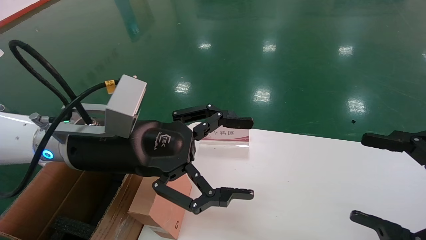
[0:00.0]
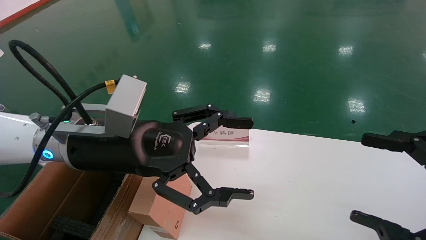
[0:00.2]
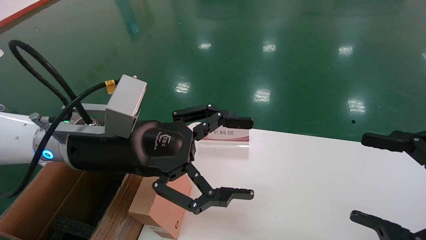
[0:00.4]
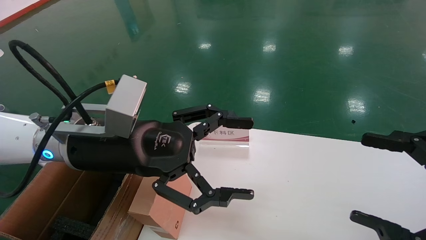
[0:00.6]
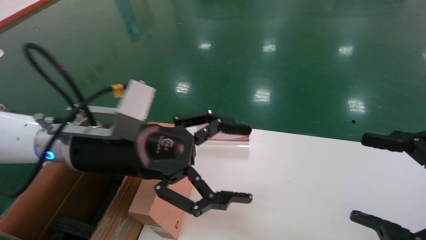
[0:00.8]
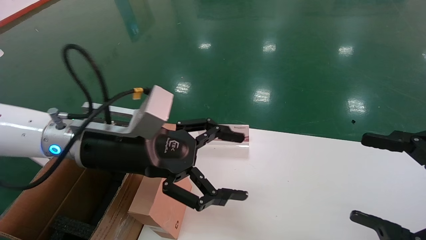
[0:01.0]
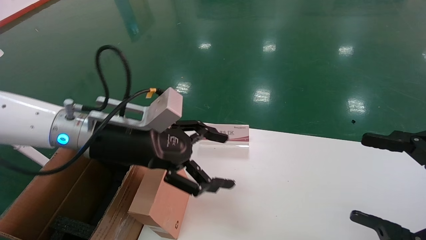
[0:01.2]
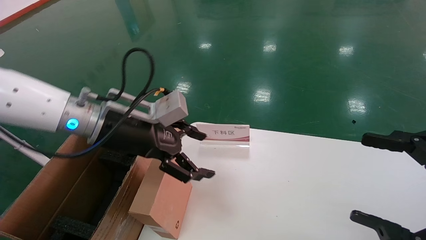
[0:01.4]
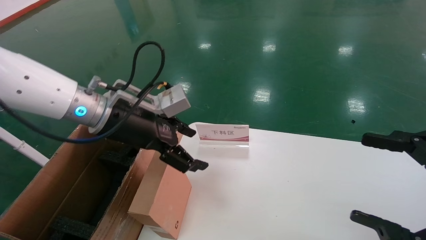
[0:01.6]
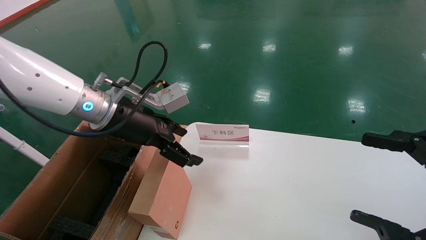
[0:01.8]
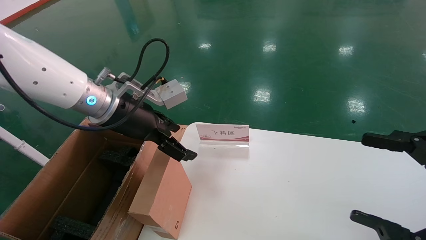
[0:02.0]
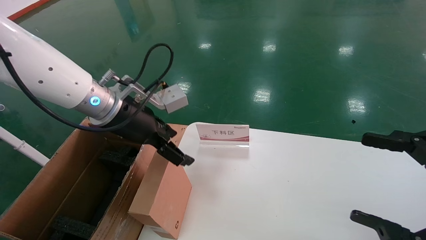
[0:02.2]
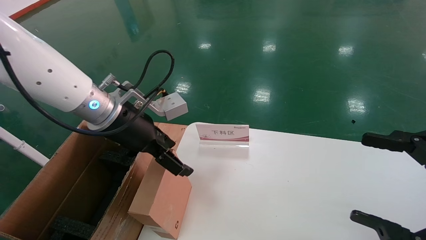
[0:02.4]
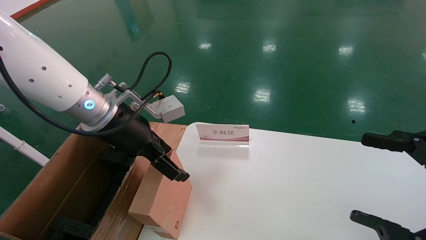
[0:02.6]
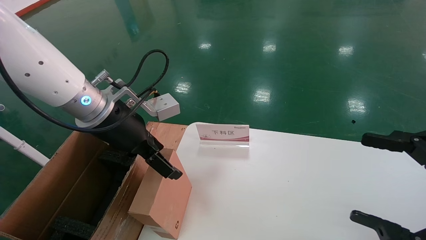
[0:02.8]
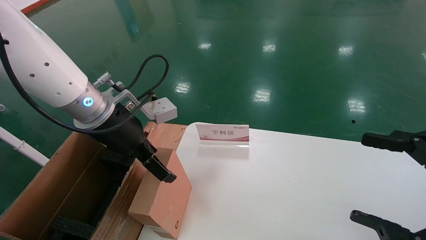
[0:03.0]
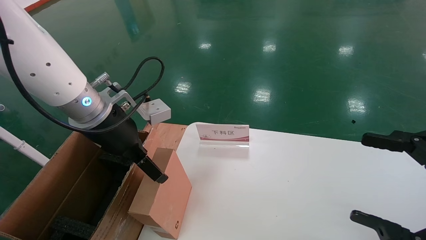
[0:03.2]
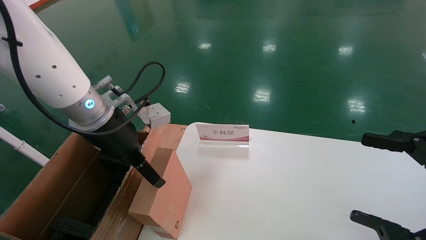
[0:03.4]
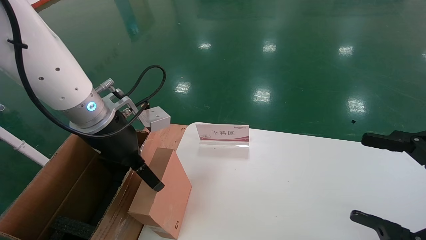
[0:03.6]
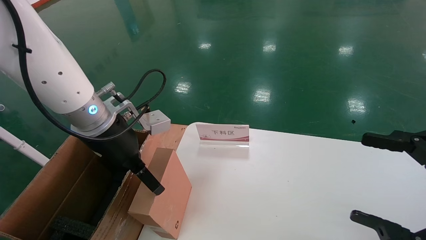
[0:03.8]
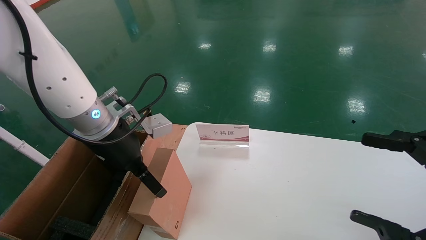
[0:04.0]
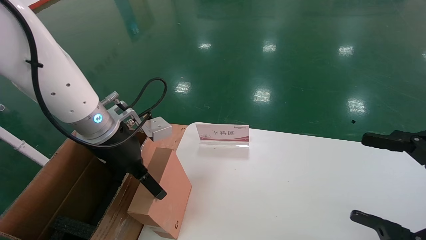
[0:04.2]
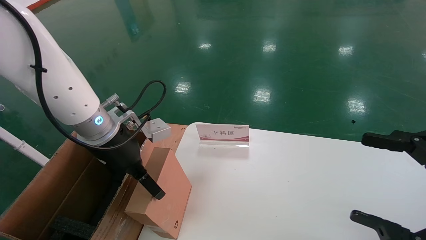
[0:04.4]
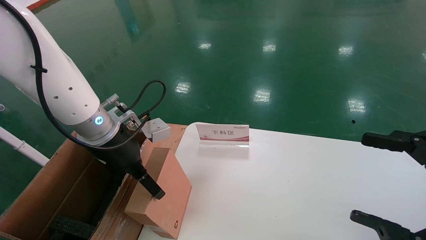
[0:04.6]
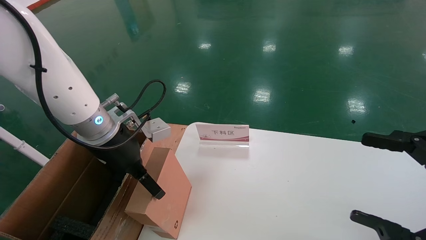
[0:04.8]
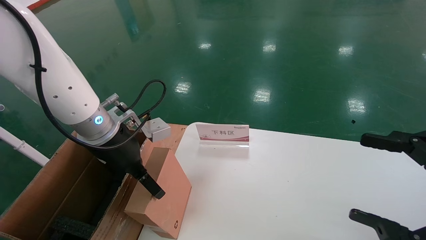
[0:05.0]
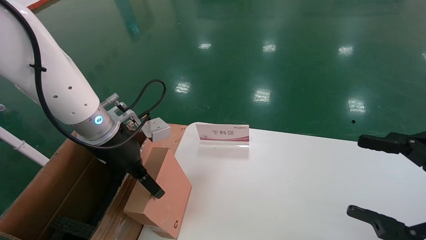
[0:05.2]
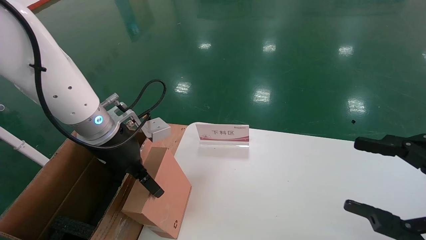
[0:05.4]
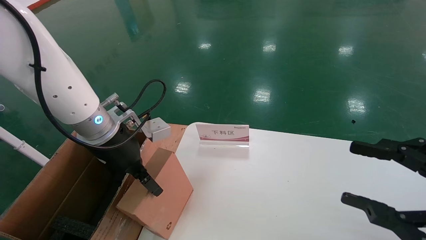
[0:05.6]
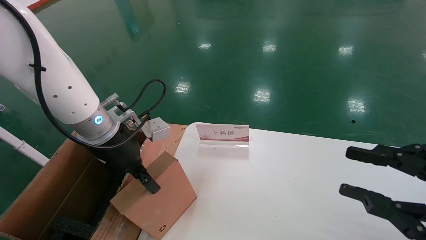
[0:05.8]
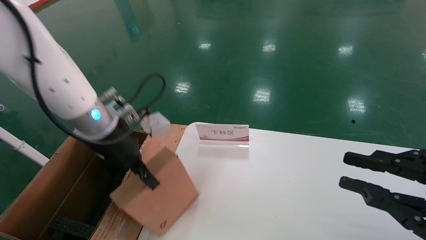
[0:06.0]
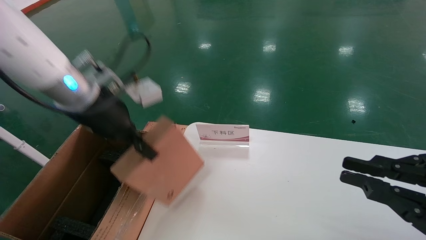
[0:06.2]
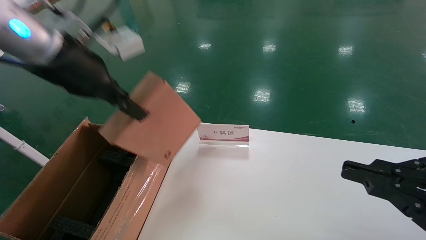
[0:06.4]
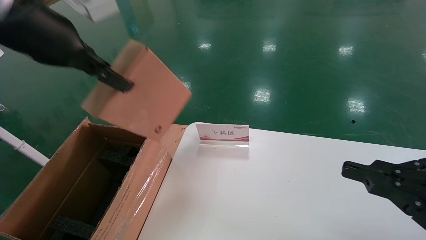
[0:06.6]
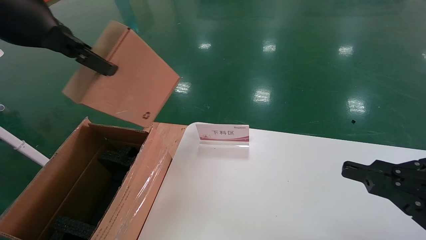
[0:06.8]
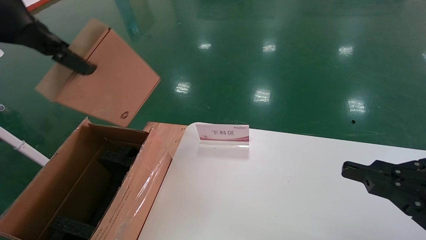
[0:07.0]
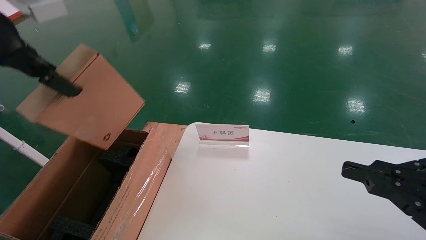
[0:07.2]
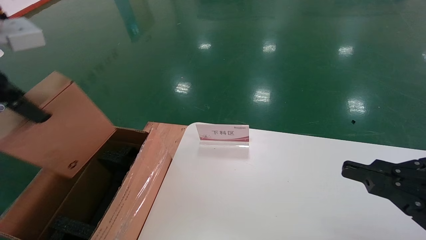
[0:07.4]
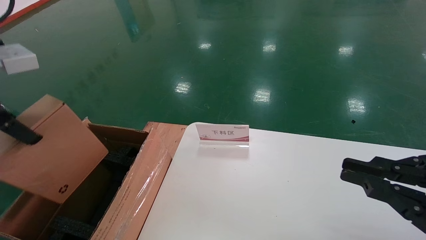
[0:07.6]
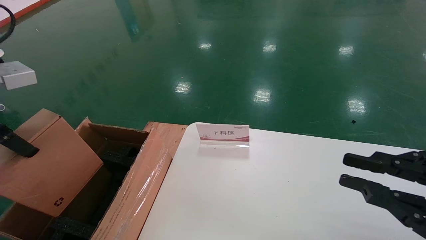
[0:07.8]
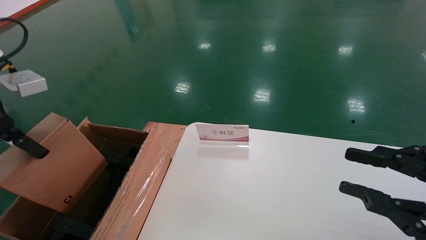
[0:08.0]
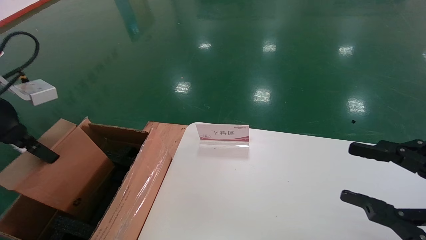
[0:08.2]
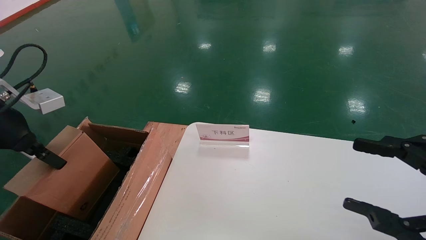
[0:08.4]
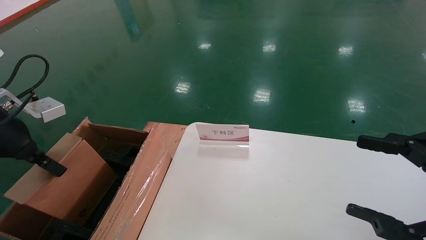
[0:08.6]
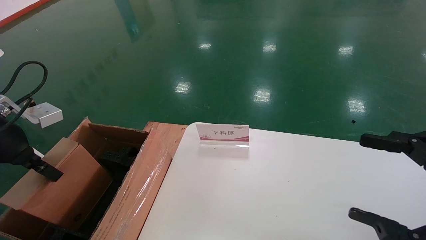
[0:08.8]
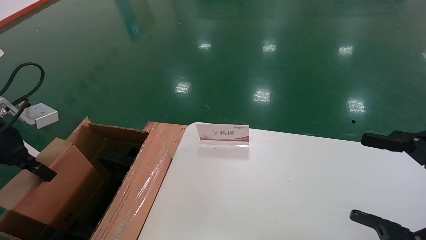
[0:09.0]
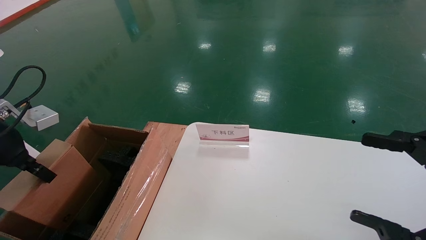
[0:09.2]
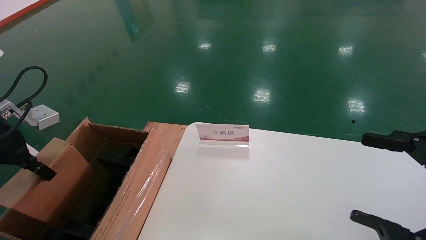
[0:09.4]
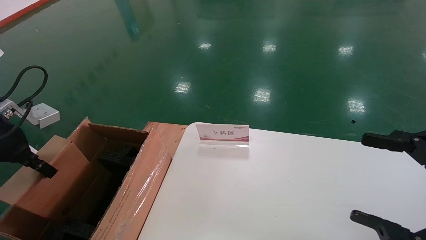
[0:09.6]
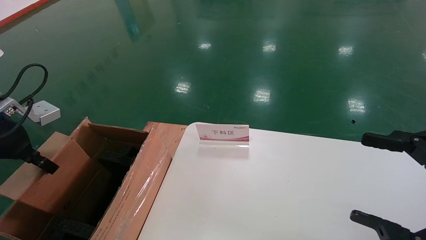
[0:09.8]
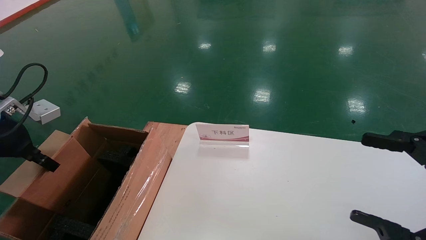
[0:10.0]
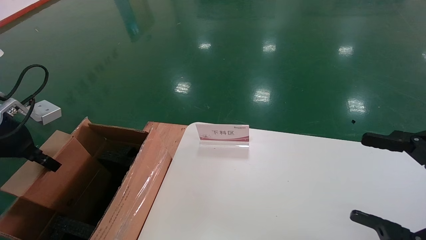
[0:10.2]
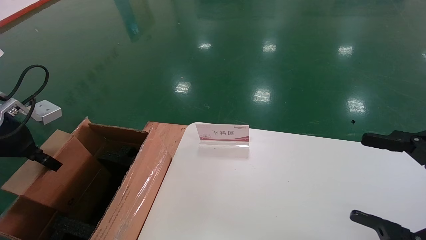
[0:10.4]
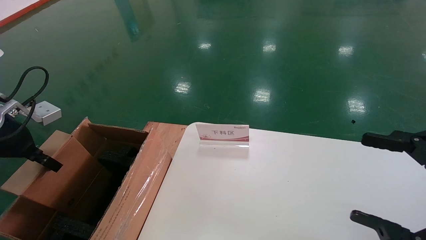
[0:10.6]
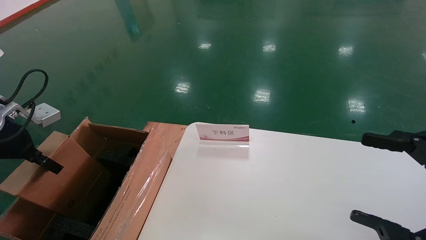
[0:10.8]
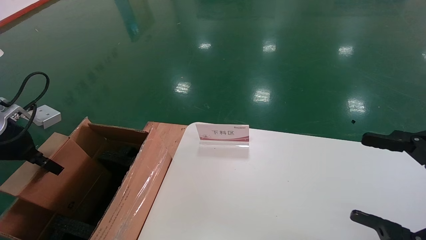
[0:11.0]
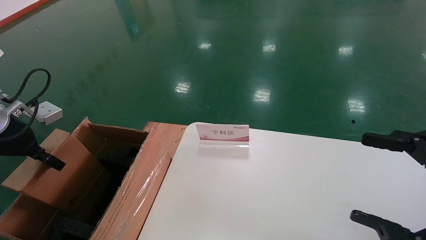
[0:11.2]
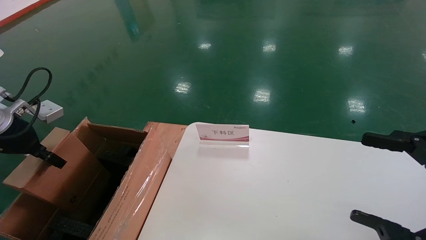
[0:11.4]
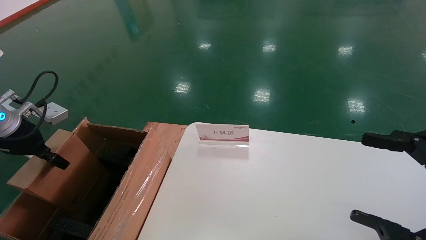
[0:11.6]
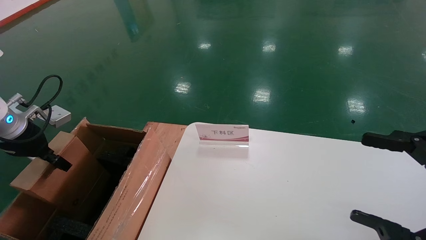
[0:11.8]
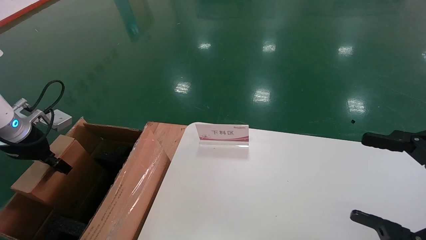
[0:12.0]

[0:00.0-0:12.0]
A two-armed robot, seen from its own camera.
Task of the whole recording: pick up the small cardboard box and load it into the large cardboard box.
Step, 0:00.8 to 0:05.6: Pick up the mouse and power cord box.
0:00.0 to 0:01.6: The left gripper goes approximately 5 cm forward.
0:03.0 to 0:04.4: There are only small adjustments of the grippers.
0:04.4 to 0:06.0: The left gripper closes its fingers; the right gripper closes.
0:06.0 to 0:07.6: The left gripper travels to the left, backward and upward by approximately 20 cm.
0:07.6 to 0:09.0: The right gripper opens its fingers; the left gripper moves downward, roughly 10 cm.
0:09.0 to 0:10.4: The grippers stay close to where they were, moving slightly.
0:10.4 to 0:12.0: The left gripper shifts by roughly 5 cm.

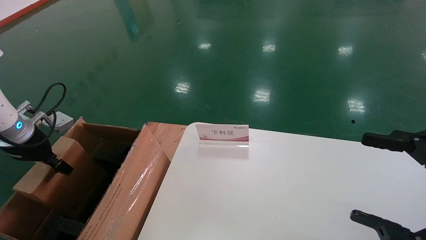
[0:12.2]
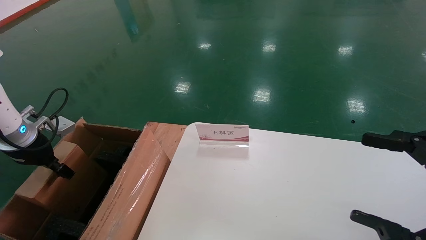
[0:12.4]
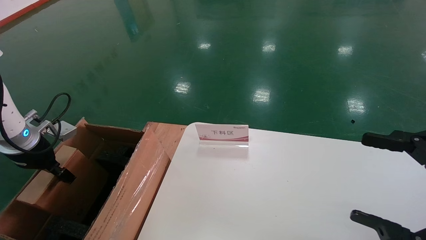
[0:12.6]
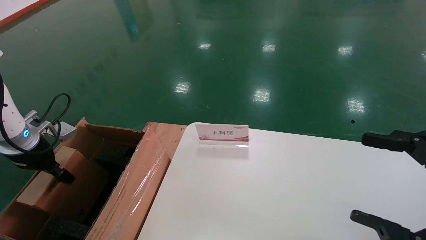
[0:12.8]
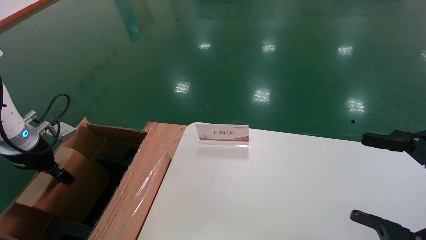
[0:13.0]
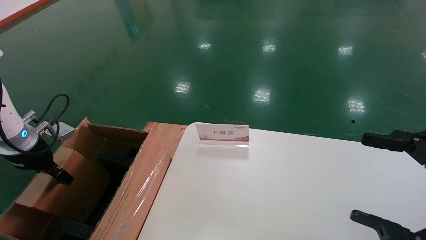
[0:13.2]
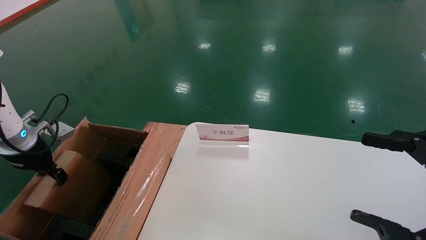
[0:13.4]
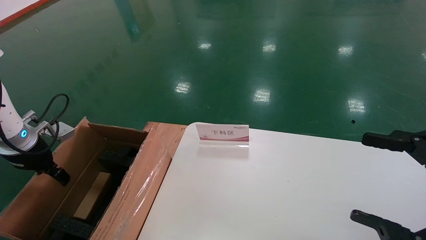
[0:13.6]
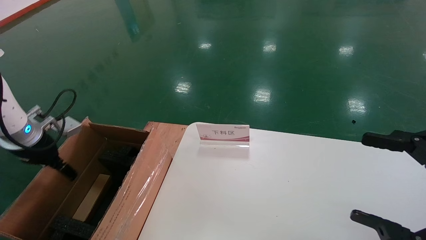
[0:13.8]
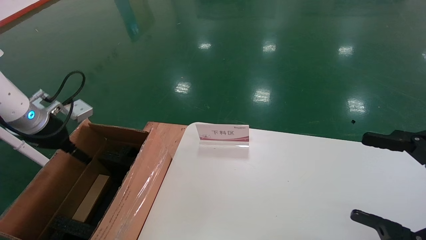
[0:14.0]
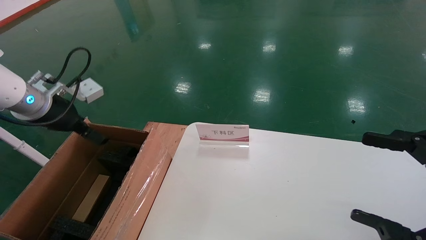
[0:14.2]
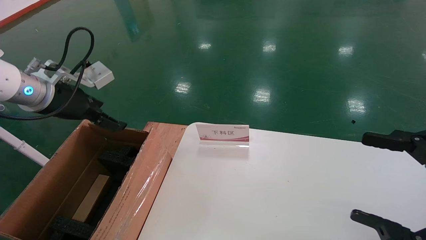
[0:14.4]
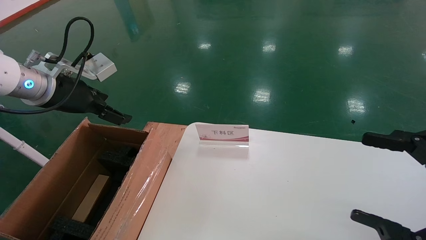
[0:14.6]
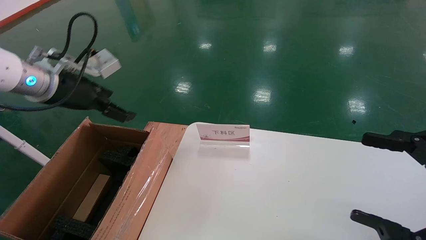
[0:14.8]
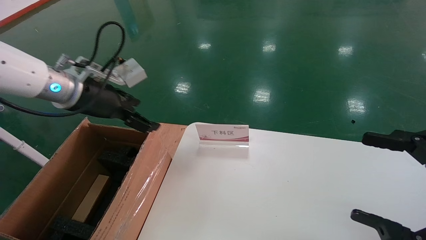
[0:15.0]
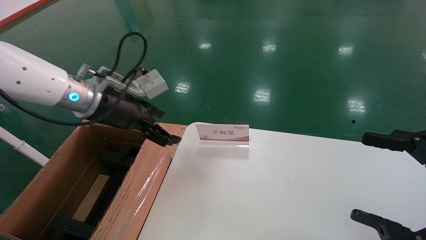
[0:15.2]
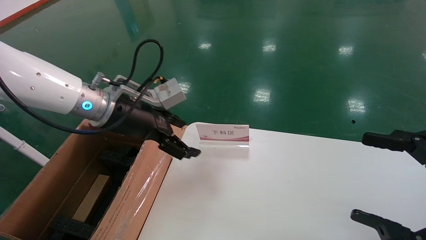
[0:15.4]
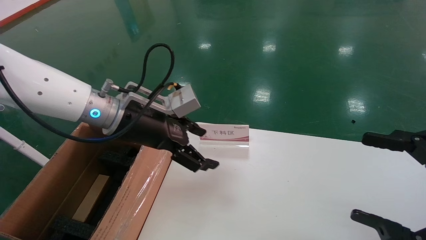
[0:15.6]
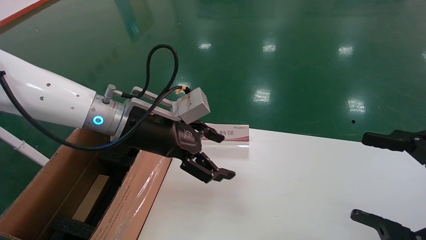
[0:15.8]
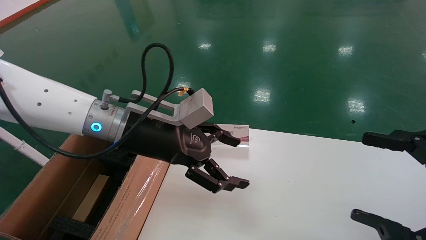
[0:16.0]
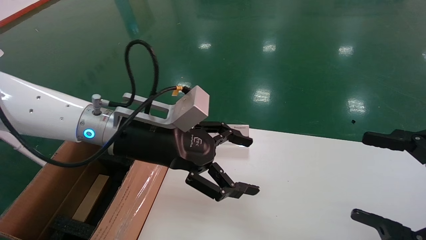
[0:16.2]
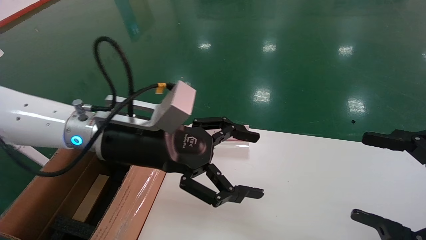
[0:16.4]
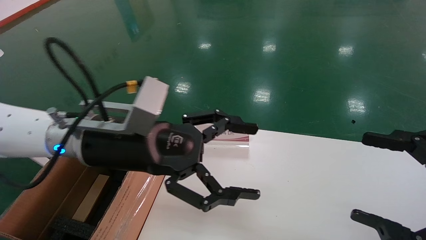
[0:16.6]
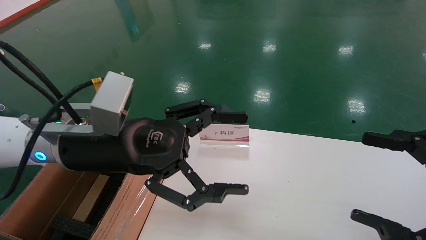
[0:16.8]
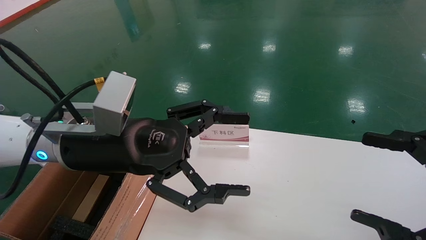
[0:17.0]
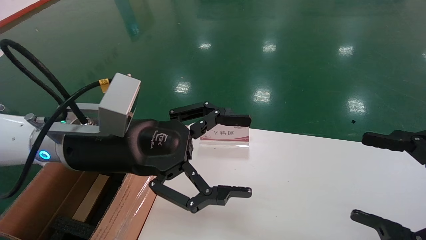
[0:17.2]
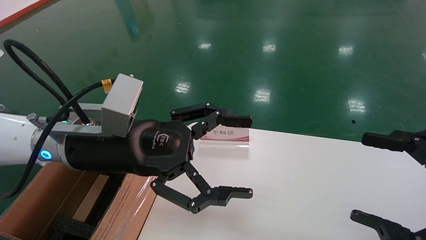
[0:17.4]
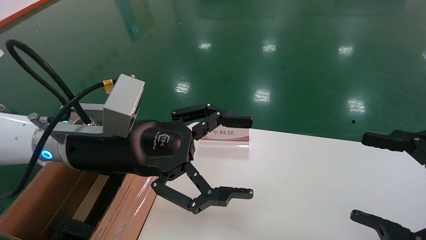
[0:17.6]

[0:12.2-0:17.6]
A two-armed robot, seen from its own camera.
Task of the whole recording: pick up the small cardboard box and load it into the large cardboard box.
0:12.2 to 0:13.6: The left gripper opens.
0:13.6 to 0:15.0: The left gripper moves to the right and upward, about 20 cm, and opens.
0:15.0 to 0:16.2: The left gripper travels to the right by roughly 15 cm.
